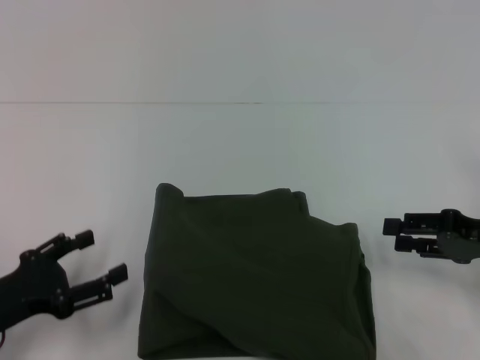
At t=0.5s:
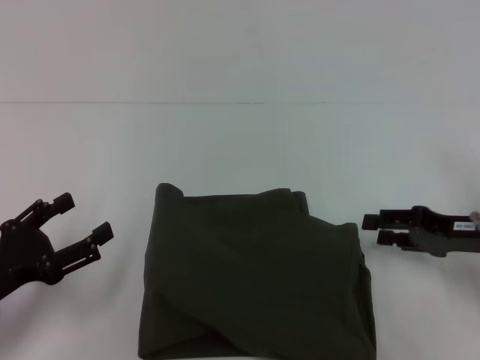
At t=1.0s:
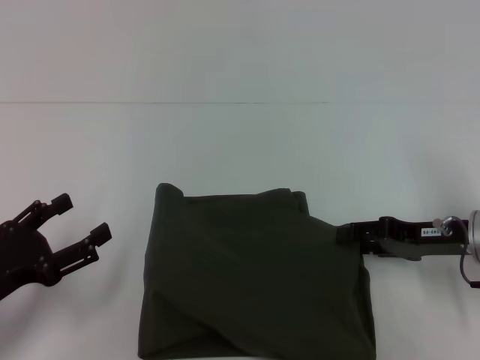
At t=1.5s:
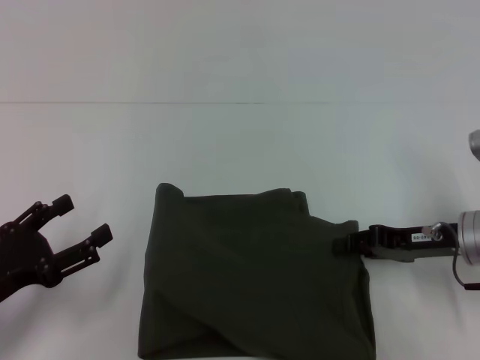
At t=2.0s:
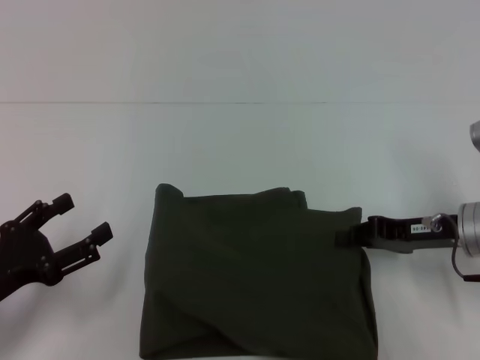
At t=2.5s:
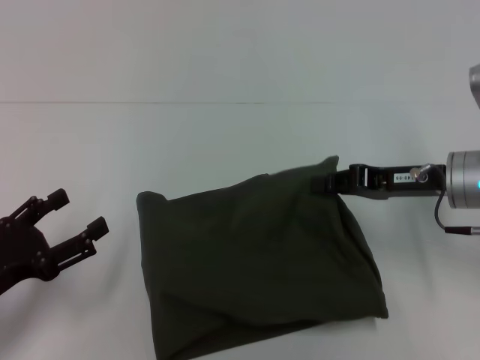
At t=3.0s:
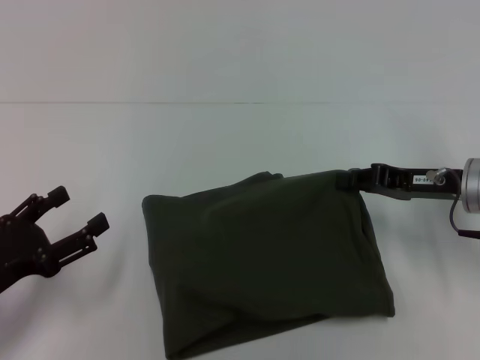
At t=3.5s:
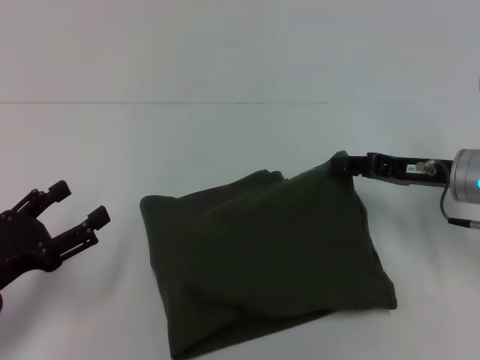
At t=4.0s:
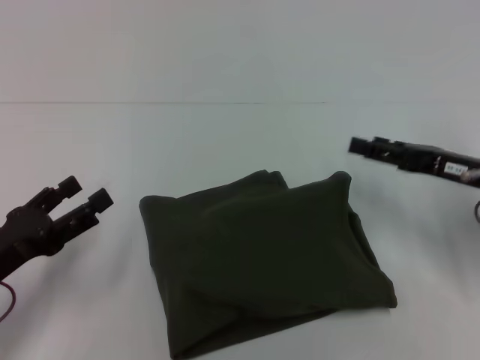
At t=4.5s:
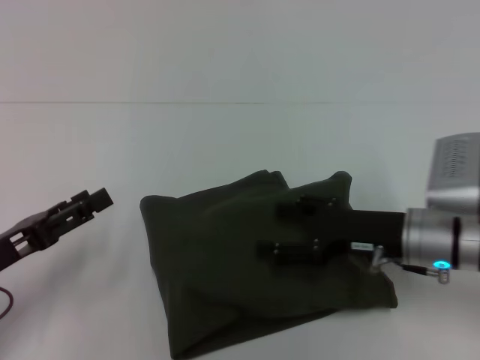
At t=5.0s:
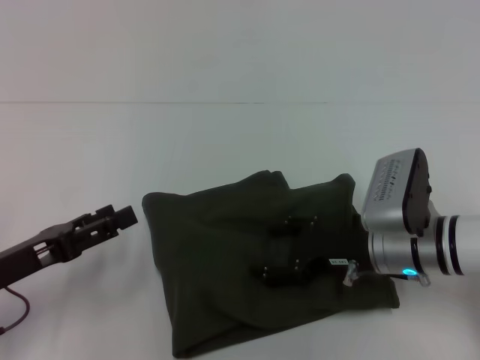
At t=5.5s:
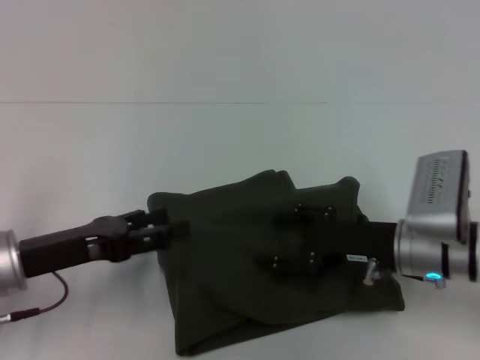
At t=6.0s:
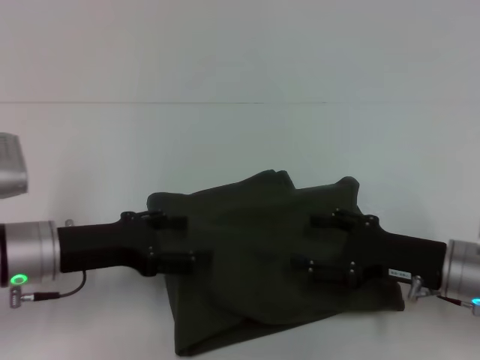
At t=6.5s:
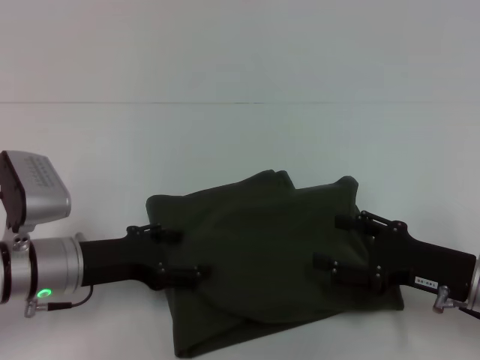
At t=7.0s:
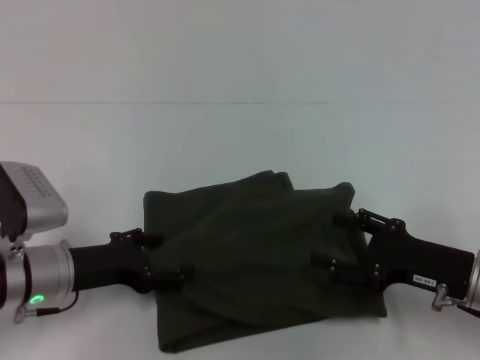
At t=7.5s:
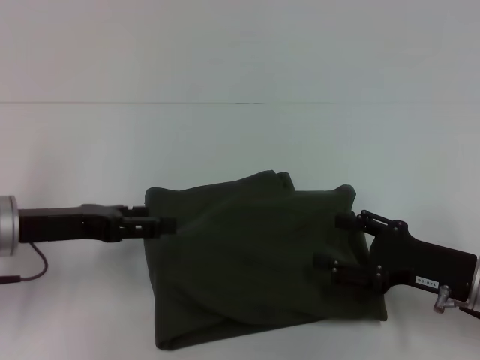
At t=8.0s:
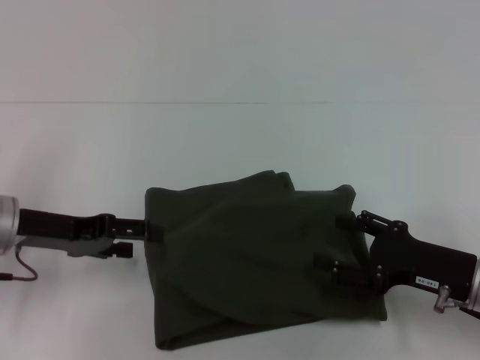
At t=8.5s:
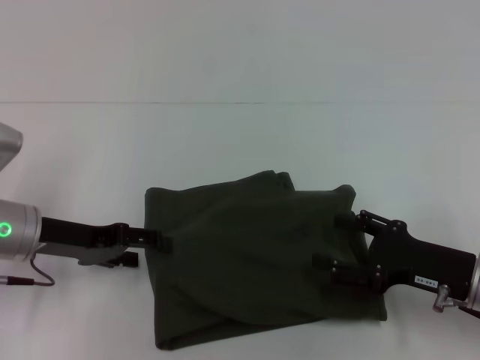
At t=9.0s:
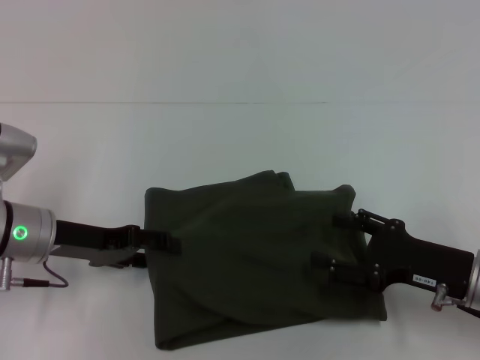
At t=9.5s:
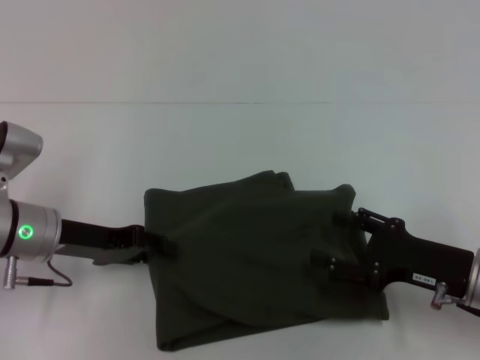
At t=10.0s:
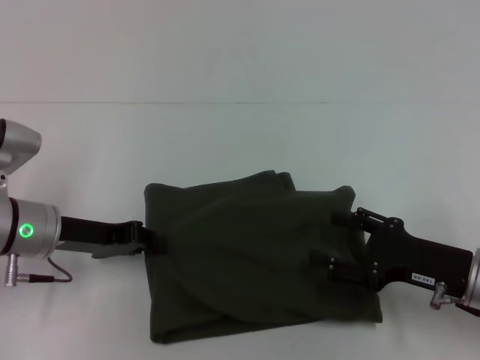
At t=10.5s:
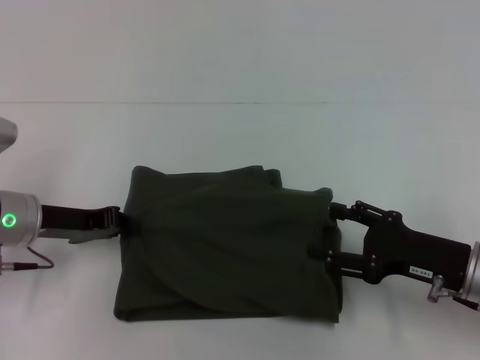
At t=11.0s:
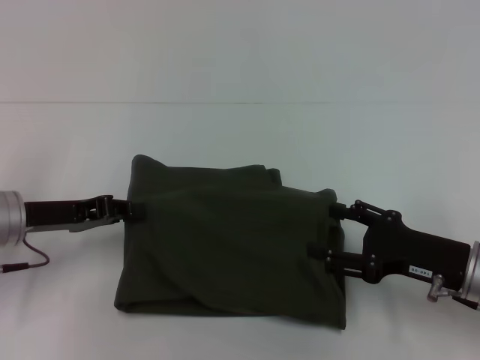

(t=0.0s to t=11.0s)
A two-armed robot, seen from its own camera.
t=0.0s - t=2.0s: The right gripper is displaced to the left by about 5 cm, and closes its fingers.
t=2.0s - t=3.5s: The grippers move only a little.
t=3.5s - t=5.5s: The right gripper shifts about 10 cm to the left and backward, and opens. The left gripper moves forward, approximately 5 cm.
t=5.5s - t=7.5s: The right gripper moves to the right and backward, roughly 10 cm.
t=9.0s - t=11.0s: The left gripper closes its fingers.

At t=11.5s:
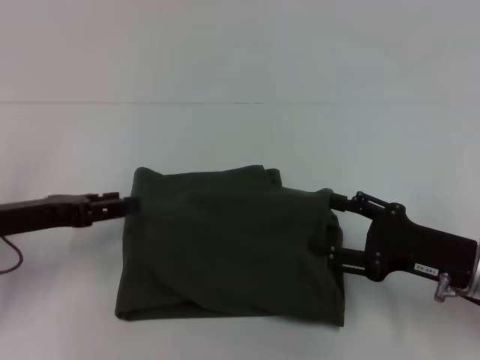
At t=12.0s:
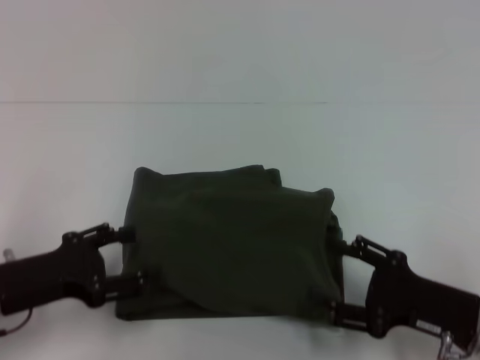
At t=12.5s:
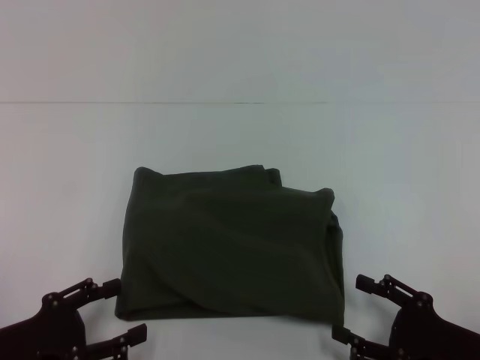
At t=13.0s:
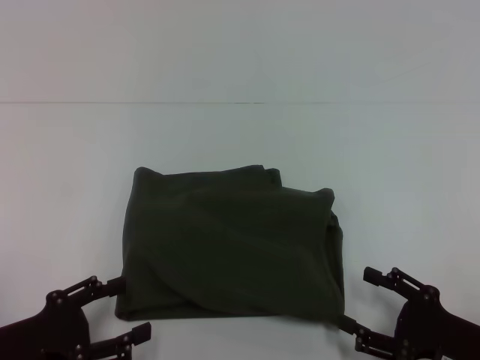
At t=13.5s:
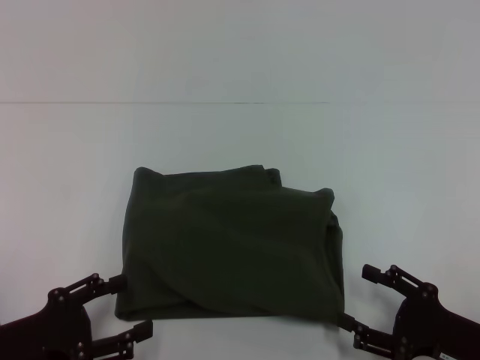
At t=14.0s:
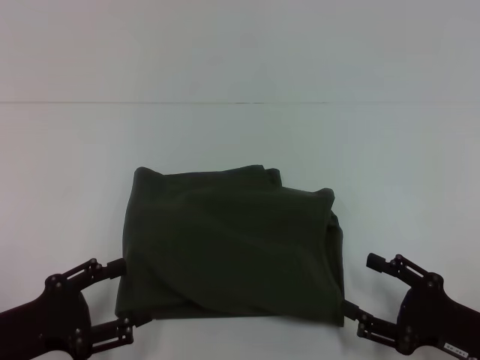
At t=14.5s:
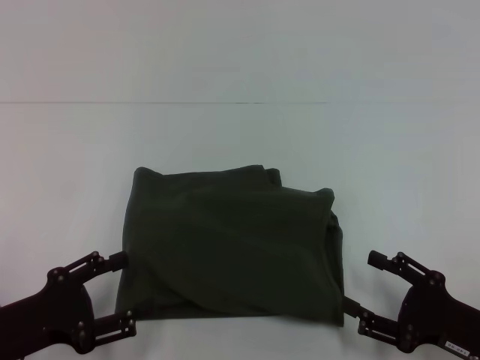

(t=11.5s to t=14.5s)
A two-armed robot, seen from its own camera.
t=11.5s - t=13.0s: The two grippers go approximately 10 cm backward and downward. The left gripper opens its fingers.
t=13.0s - t=14.5s: Both grippers stay about where they are.

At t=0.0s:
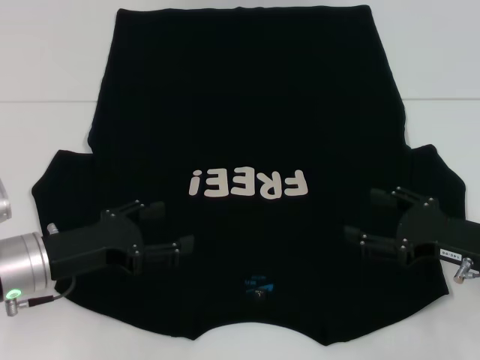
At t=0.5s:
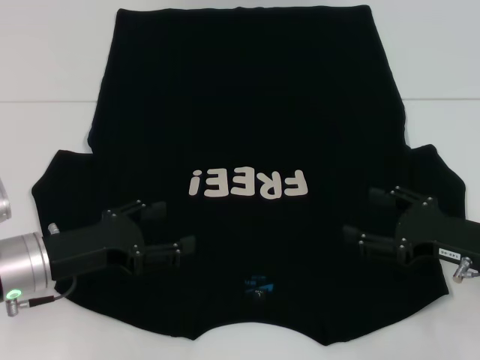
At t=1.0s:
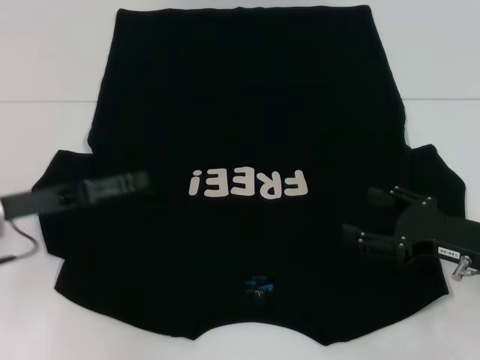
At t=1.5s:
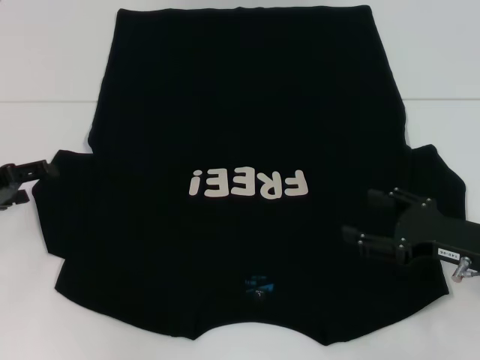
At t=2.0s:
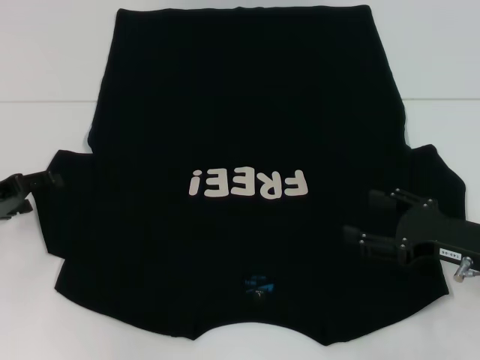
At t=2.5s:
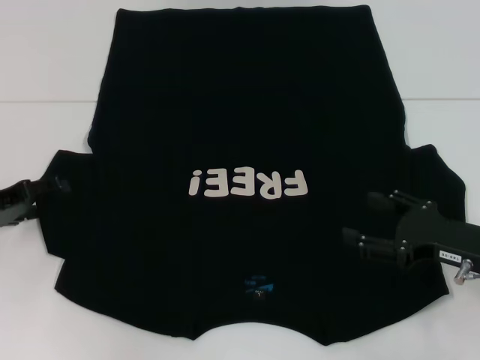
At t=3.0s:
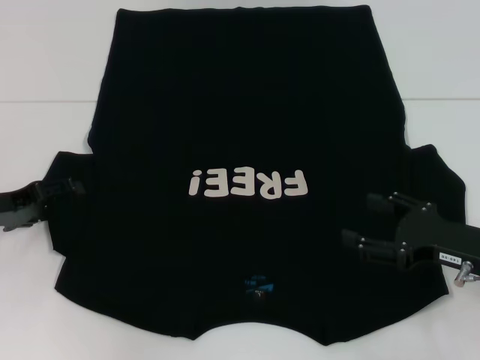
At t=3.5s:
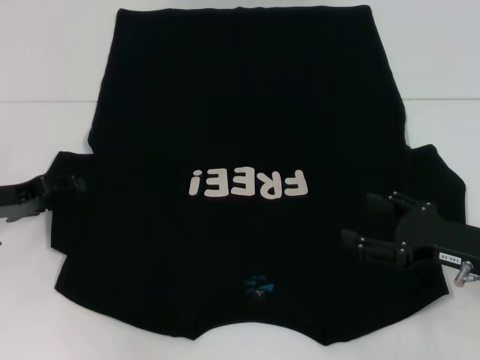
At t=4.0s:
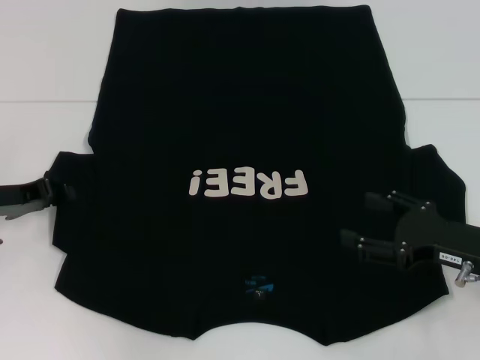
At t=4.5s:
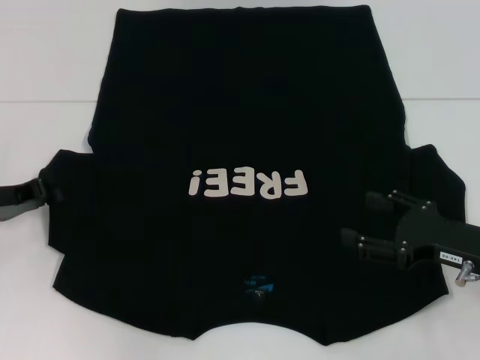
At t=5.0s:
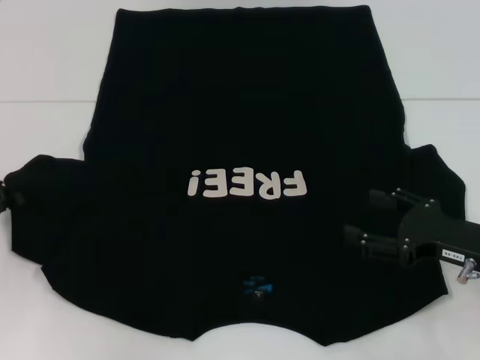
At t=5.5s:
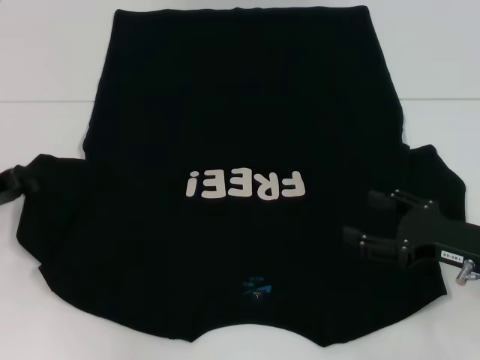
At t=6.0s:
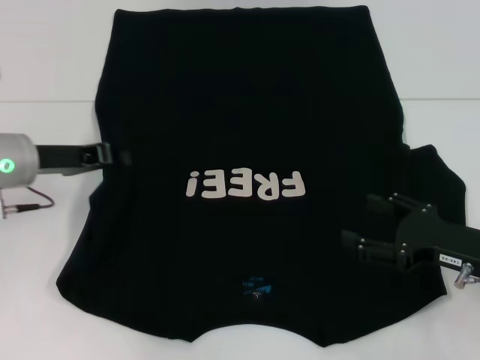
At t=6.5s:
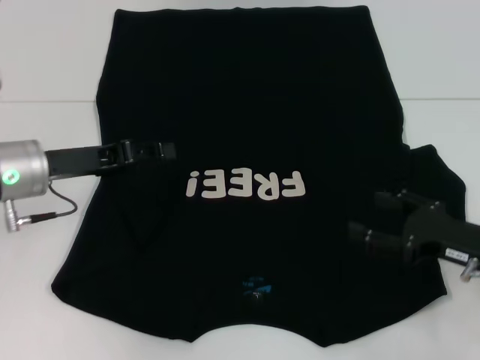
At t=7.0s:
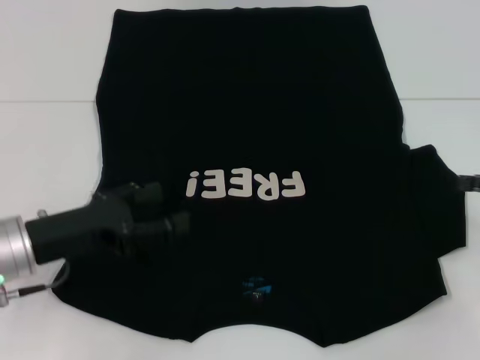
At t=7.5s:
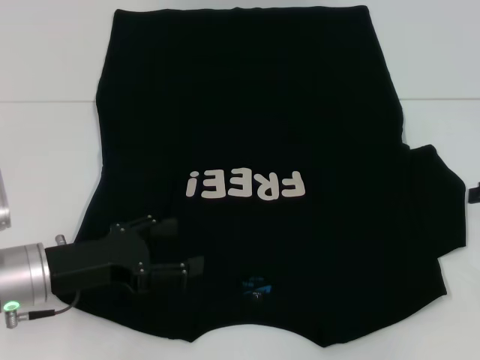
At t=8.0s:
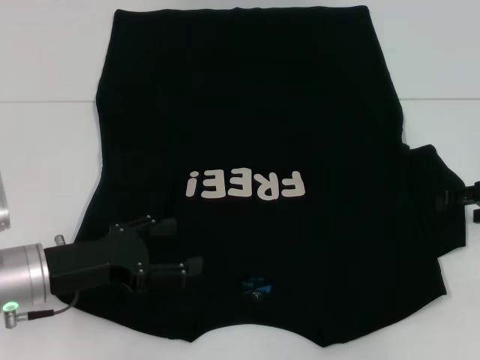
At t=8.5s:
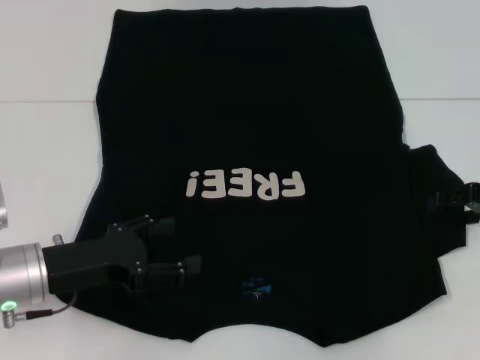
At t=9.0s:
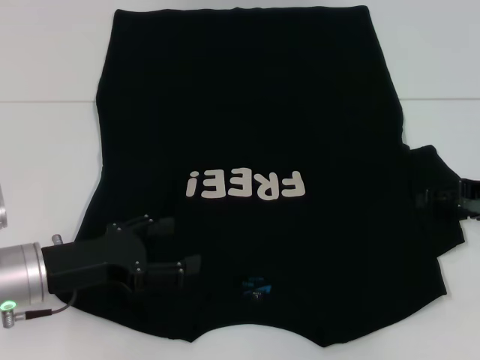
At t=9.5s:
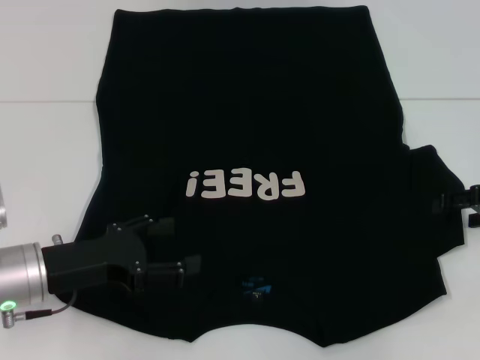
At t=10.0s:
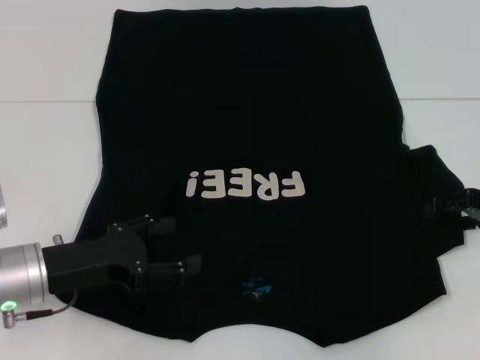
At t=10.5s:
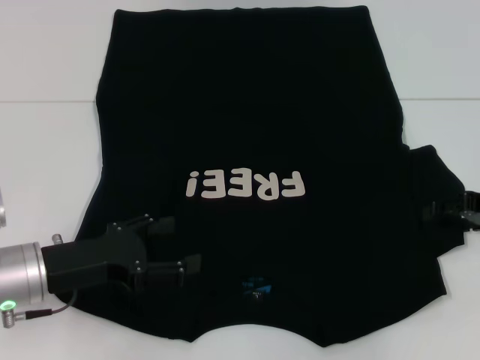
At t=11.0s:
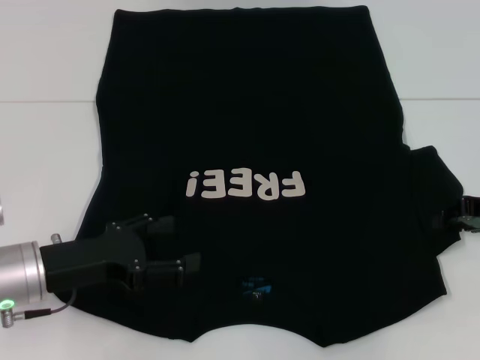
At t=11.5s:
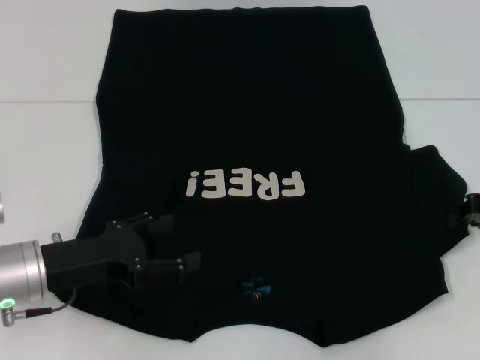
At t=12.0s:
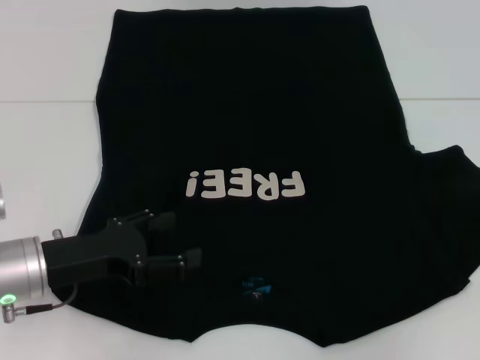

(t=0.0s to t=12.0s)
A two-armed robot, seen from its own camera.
Step, t=0.0s - t=7.0s: Fold the bottom left sleeve with your left hand.
t=0.0s - t=2.0s: The left gripper goes some 10 cm to the left and forward.
t=2.0s - t=4.0s: The left gripper closes its fingers.
t=4.0s - t=6.0s: The left gripper moves to the right, roughly 5 cm, and closes.
t=6.0s - t=8.0s: The right gripper travels forward, to the right and upward by approximately 10 cm; the left gripper is displaced backward and downward by approximately 10 cm, and opens up.
t=8.0s - t=10.0s: The grippers make only small movements.
t=10.0s - t=12.0s: The right gripper shifts by roughly 5 cm, and closes up.
